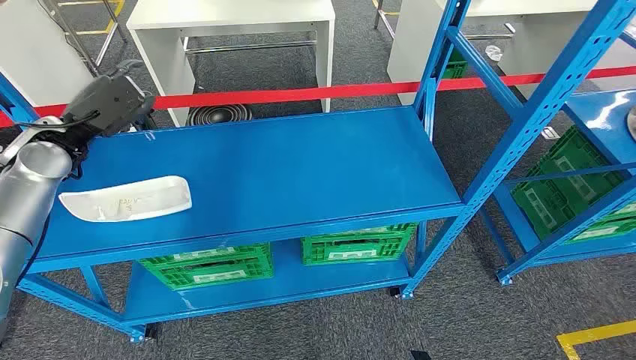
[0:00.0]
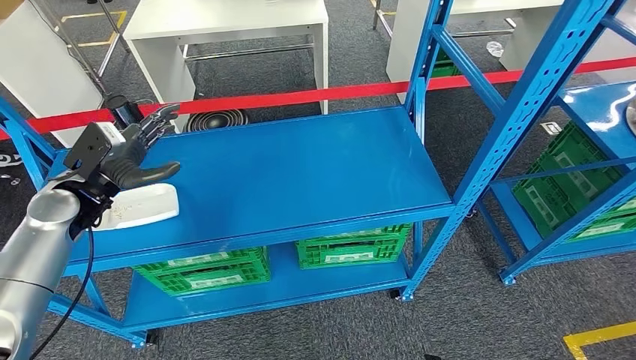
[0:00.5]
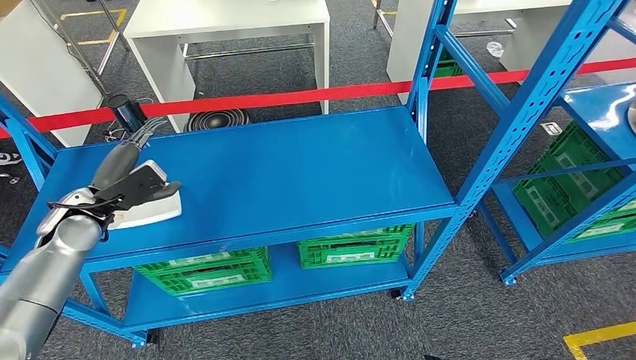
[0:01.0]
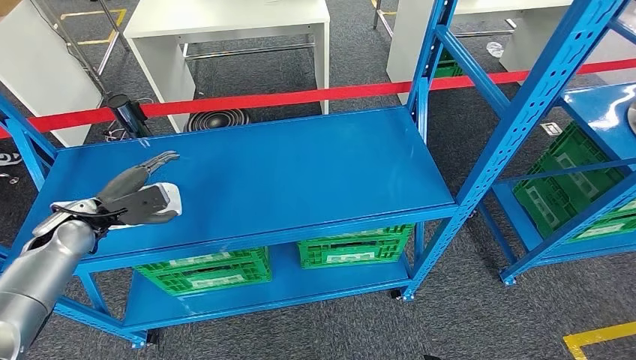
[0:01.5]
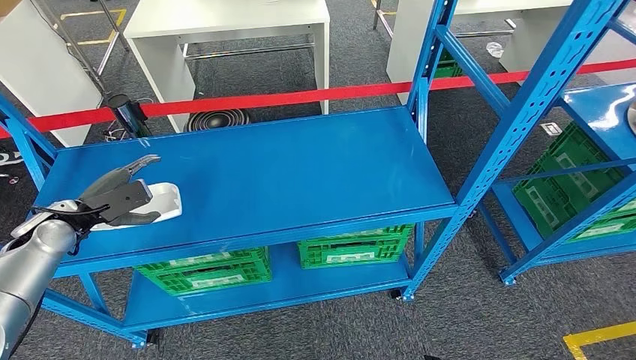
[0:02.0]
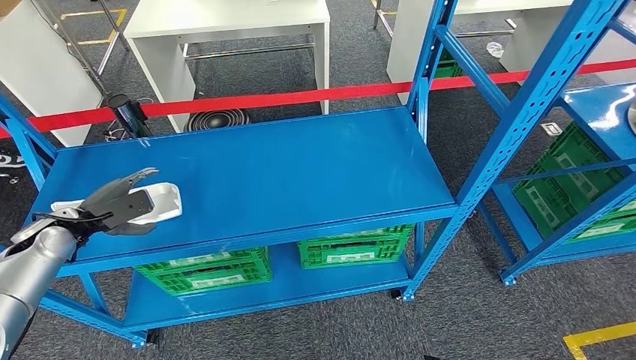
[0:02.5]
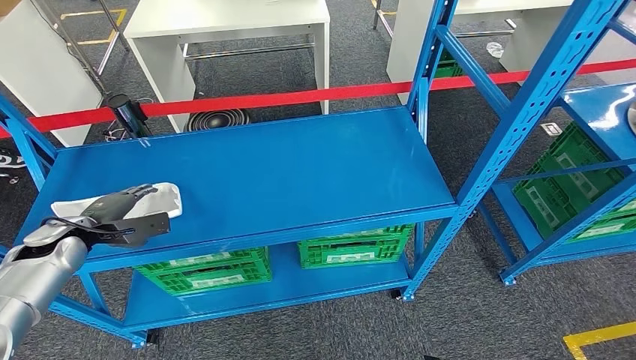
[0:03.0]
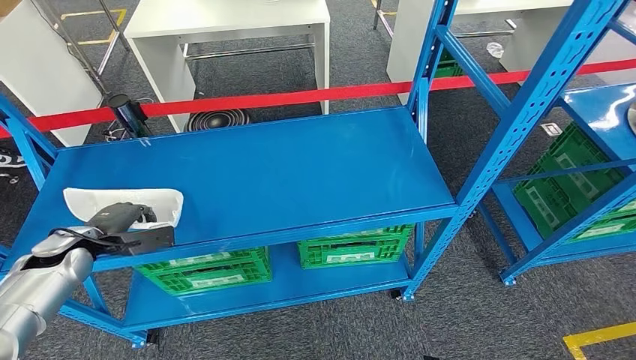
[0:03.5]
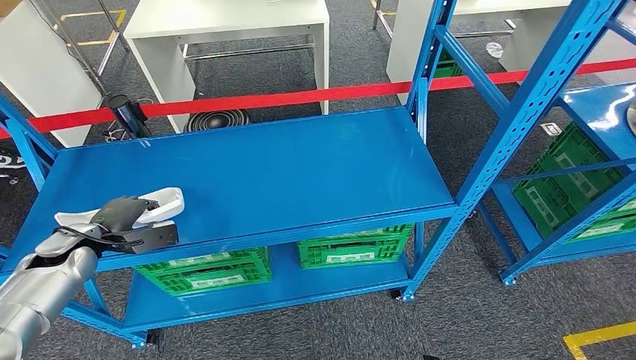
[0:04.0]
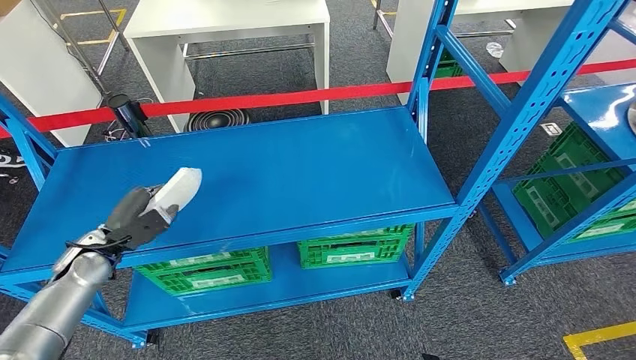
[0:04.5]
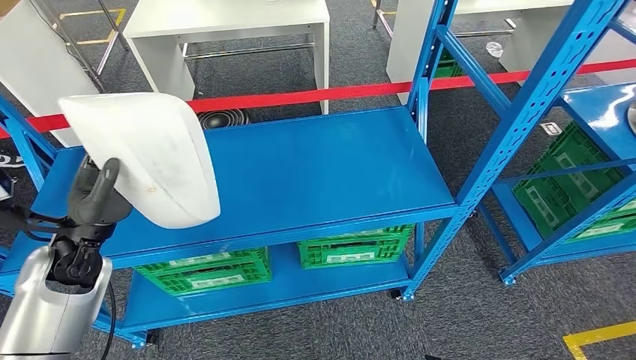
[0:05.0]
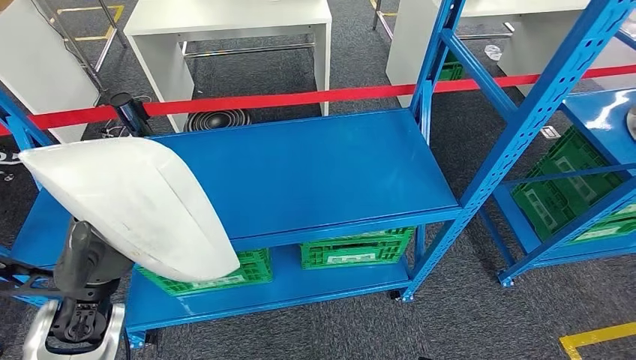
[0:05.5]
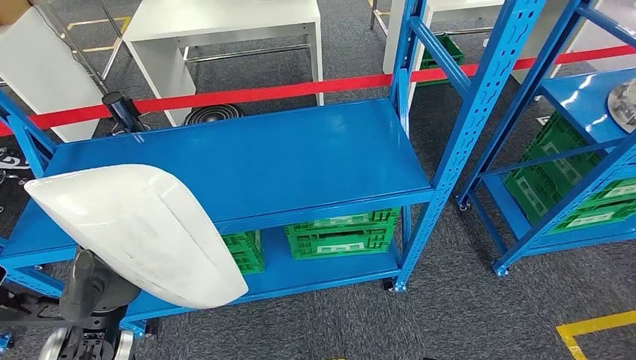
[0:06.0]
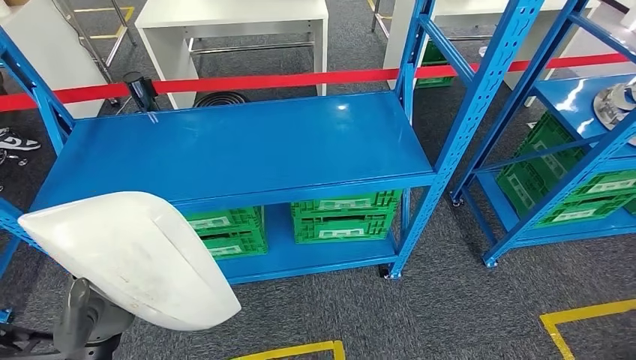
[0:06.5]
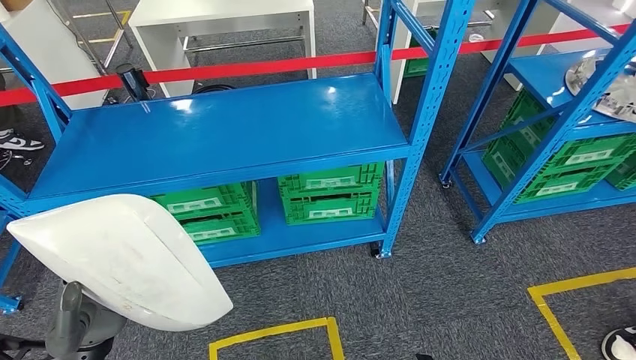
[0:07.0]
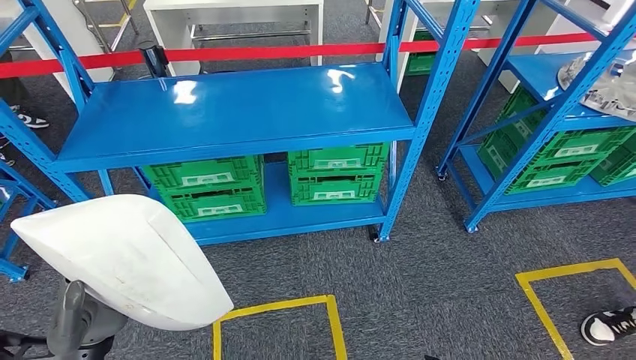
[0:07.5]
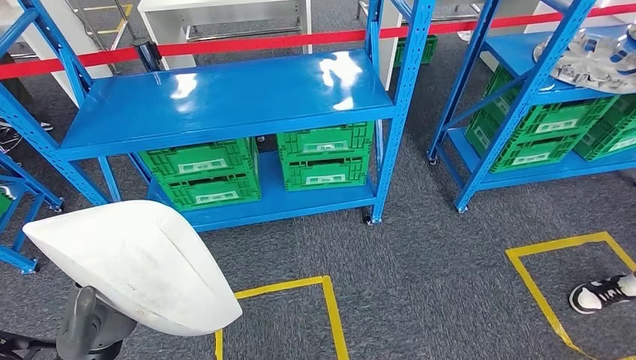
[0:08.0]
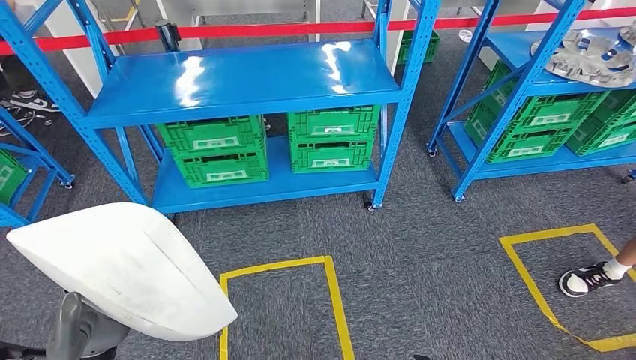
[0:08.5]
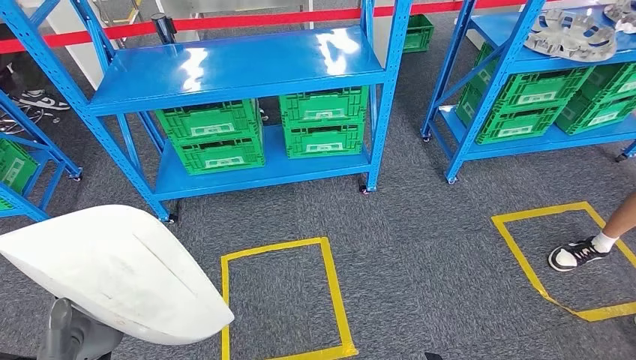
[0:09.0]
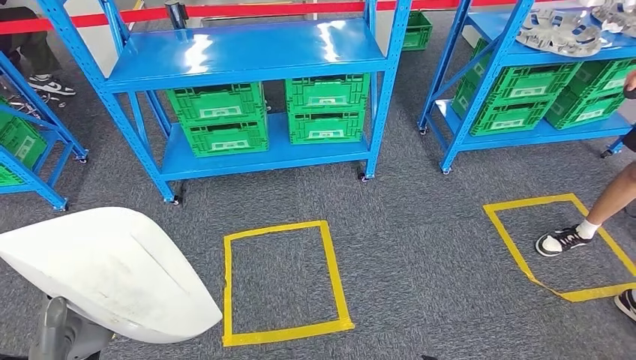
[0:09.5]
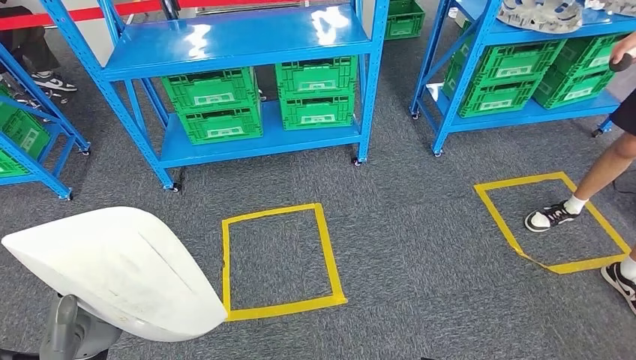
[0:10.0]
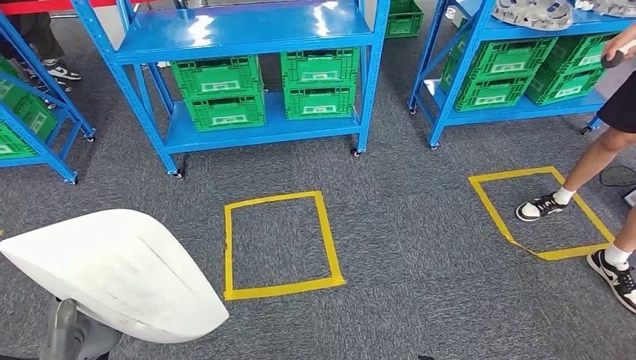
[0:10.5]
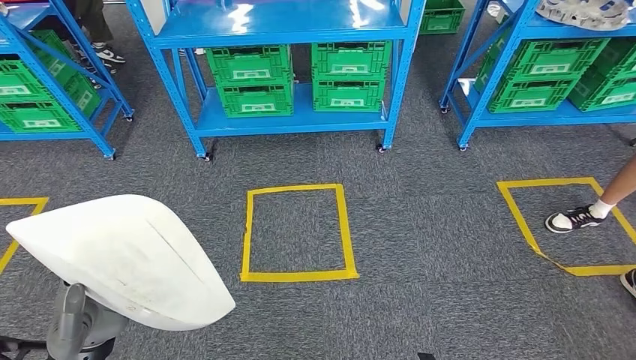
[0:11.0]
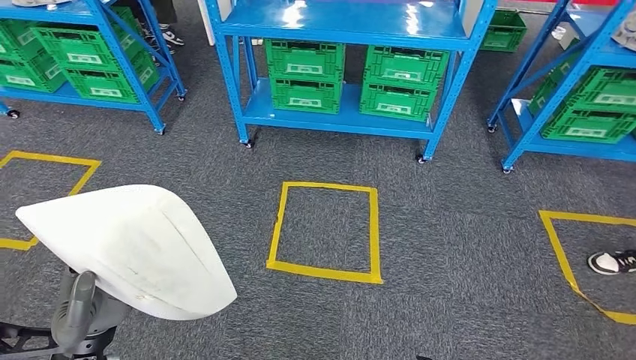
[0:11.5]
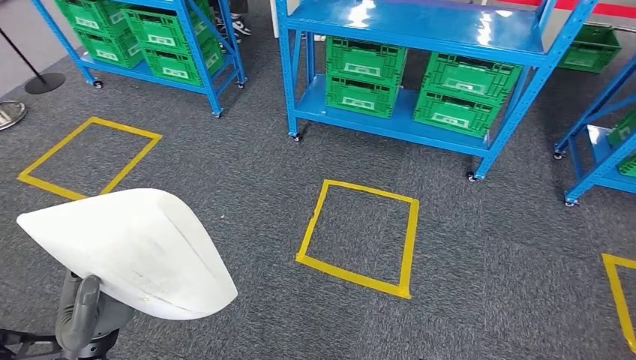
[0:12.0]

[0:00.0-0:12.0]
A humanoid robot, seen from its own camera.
Step, 0:00.0 to 0:05.5: Pick up the small component from the shelf.

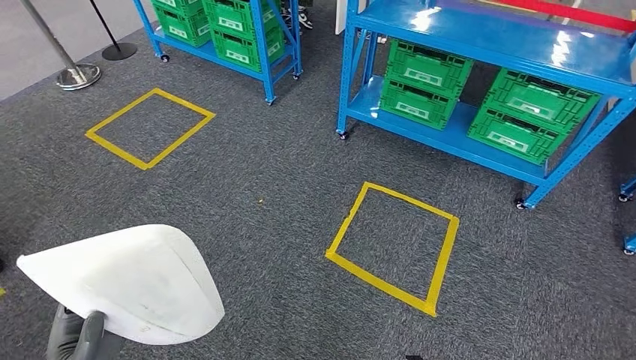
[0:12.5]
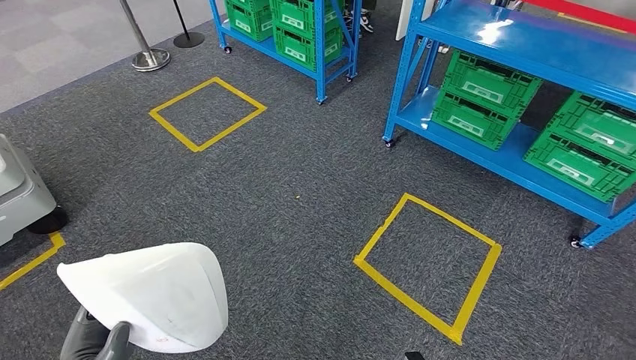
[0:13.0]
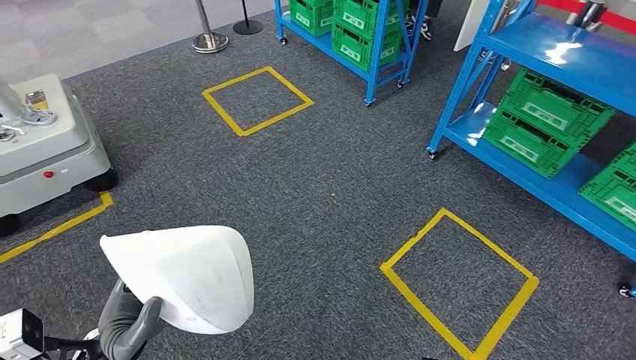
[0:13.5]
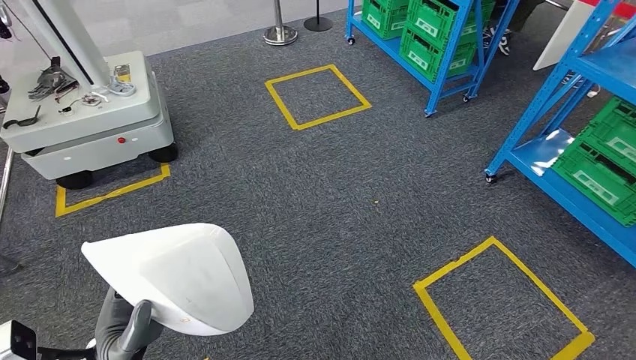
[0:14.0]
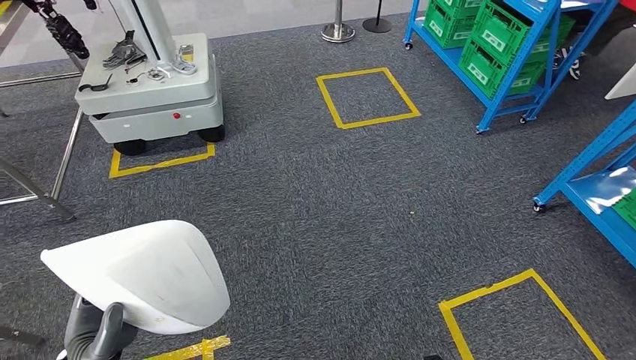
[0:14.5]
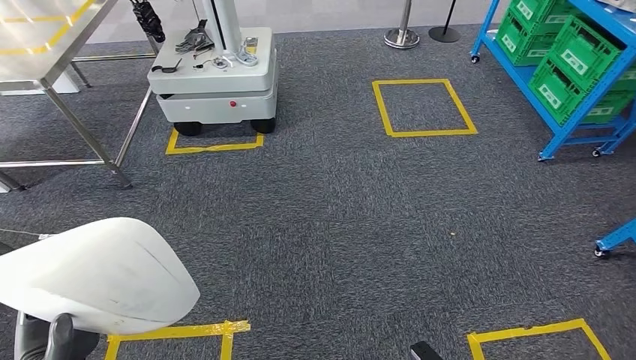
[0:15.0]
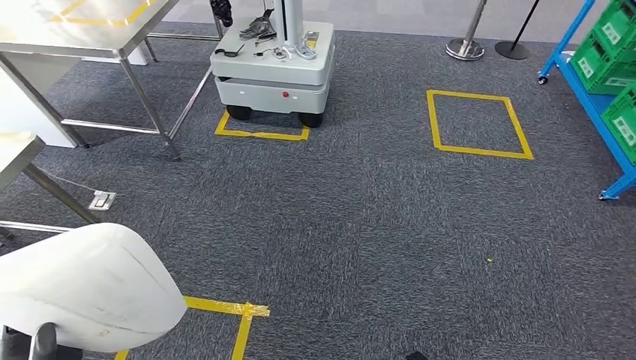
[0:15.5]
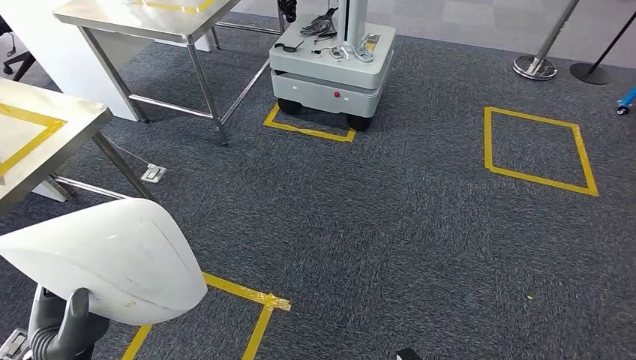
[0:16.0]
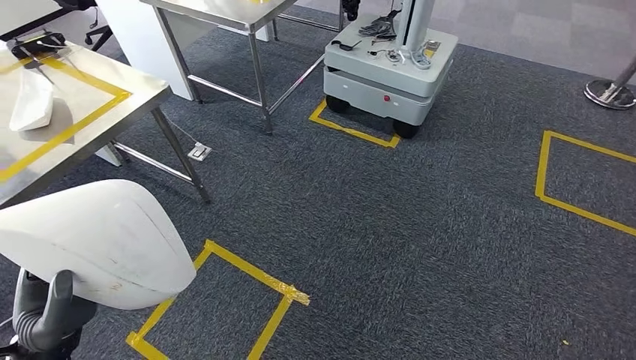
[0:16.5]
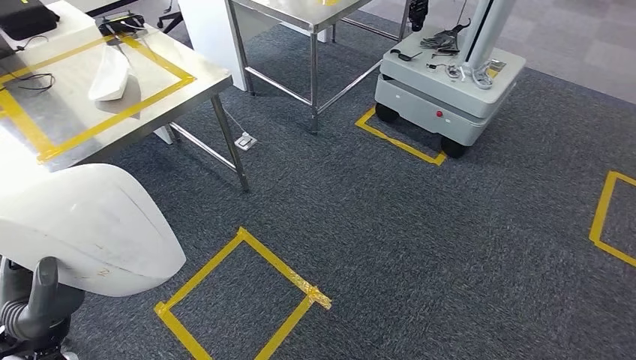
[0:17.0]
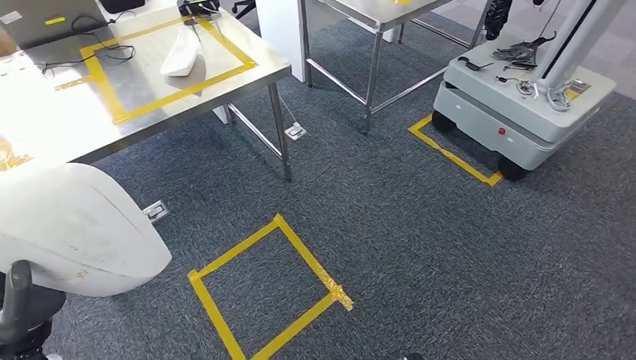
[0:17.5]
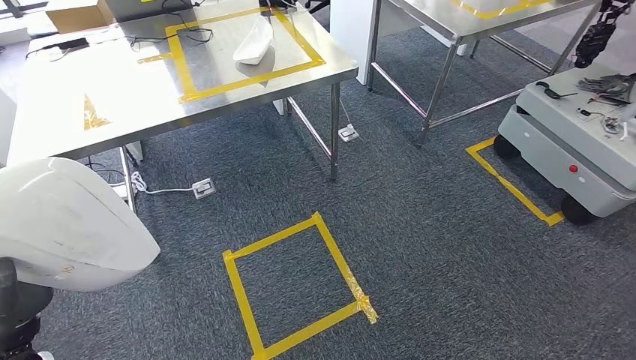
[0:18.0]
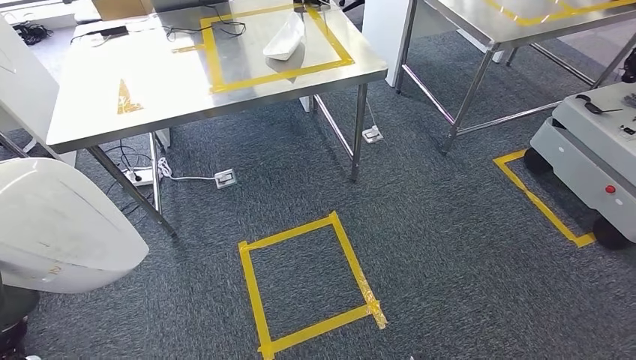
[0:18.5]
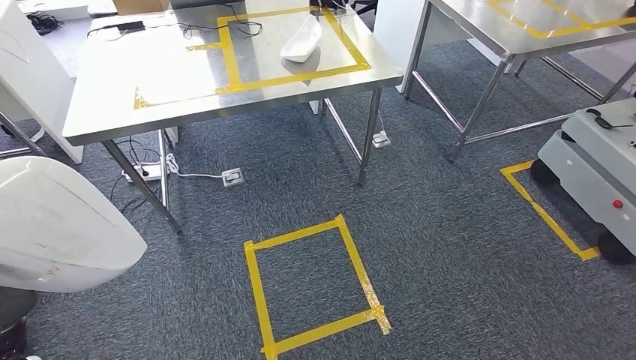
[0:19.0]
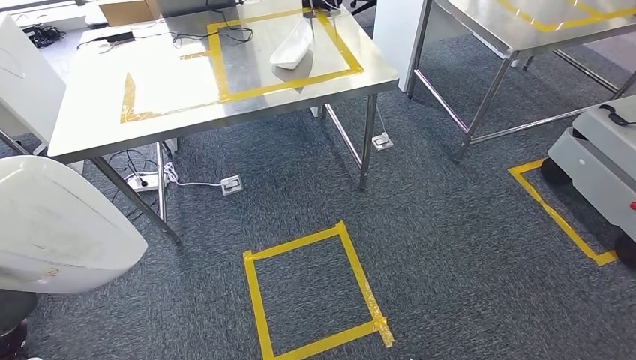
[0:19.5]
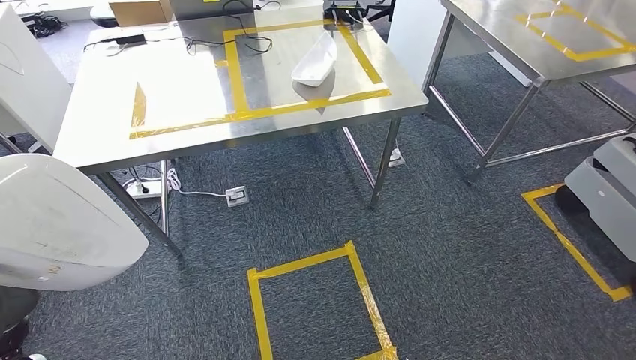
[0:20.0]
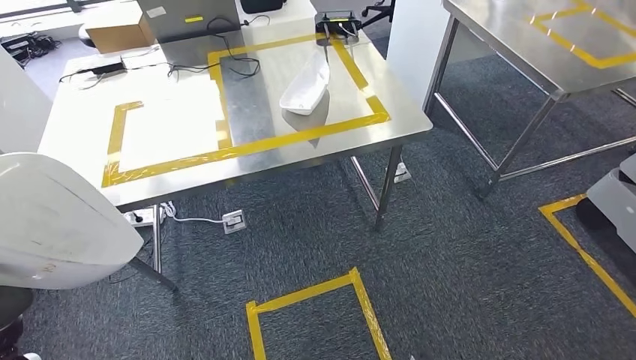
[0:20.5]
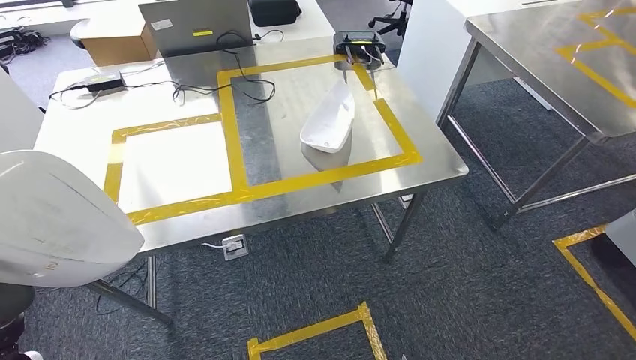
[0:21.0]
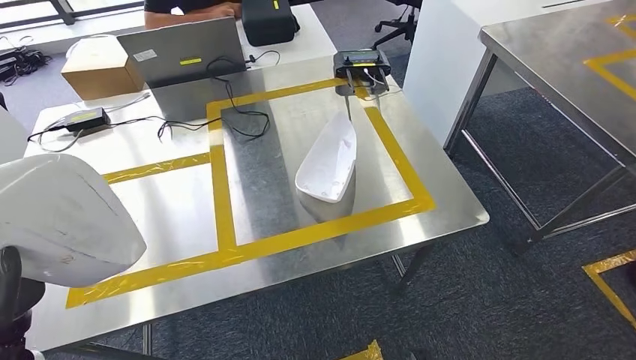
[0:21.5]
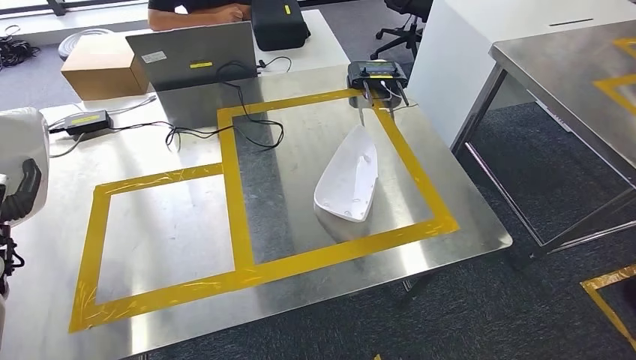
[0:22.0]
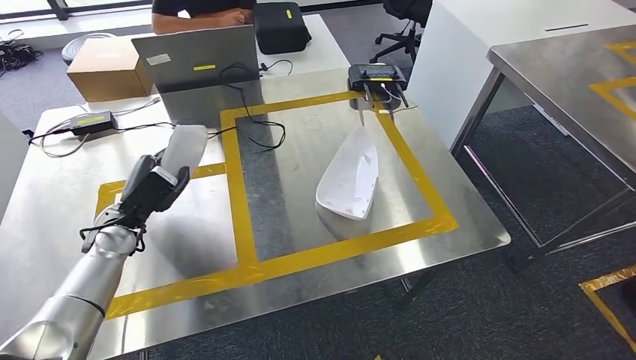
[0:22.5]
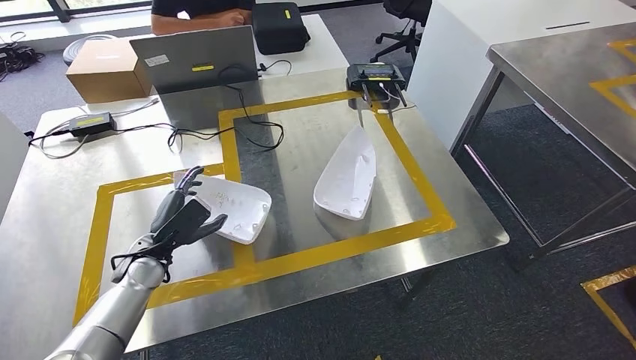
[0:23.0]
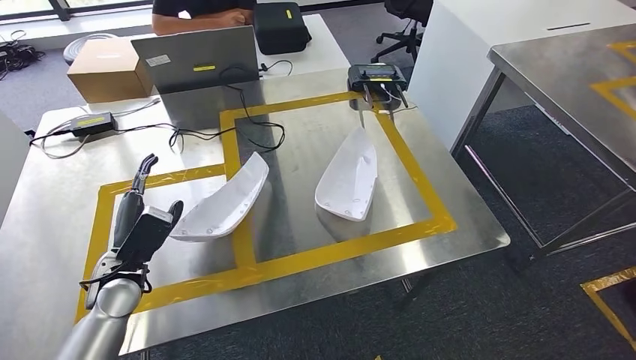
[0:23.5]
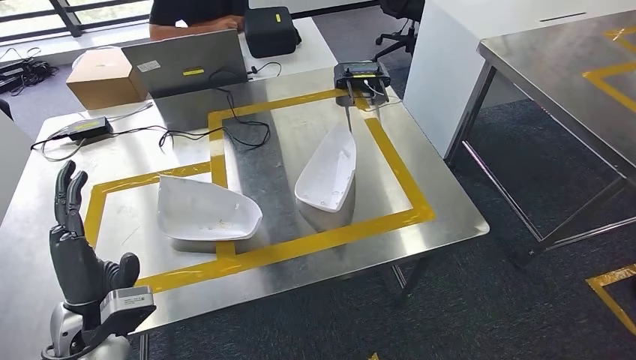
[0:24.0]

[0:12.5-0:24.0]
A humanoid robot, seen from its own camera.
Step, 0:12.5 to 0:19.0: Bring the small component to the front of the workbench.
Step, 0:19.5 to 0:23.5: Insert the small component into the corresponding slot on the workbench.
